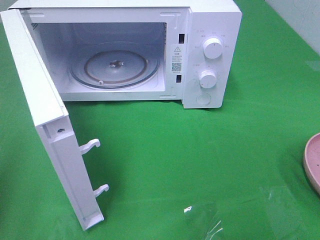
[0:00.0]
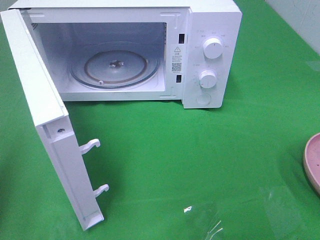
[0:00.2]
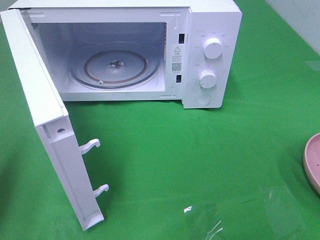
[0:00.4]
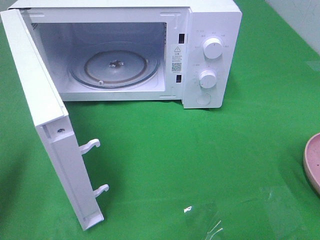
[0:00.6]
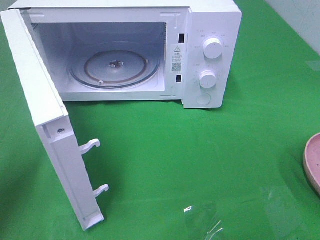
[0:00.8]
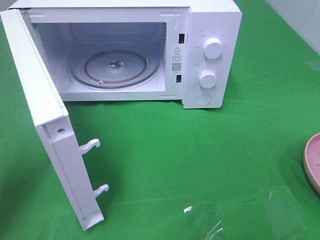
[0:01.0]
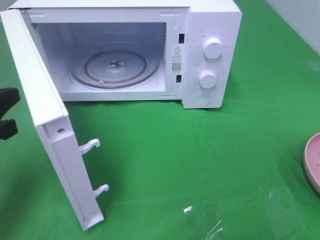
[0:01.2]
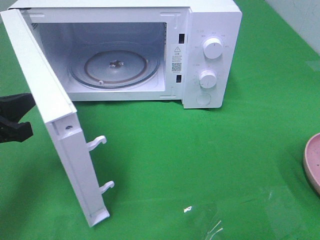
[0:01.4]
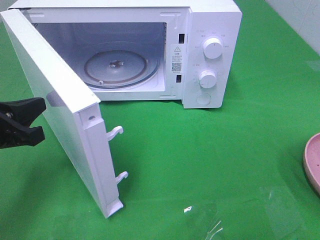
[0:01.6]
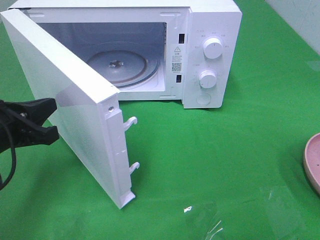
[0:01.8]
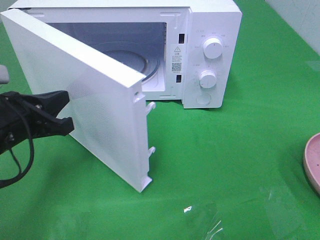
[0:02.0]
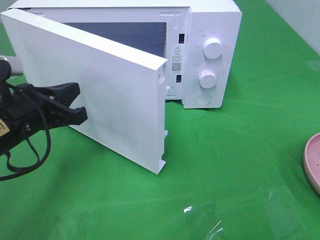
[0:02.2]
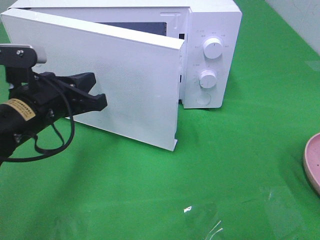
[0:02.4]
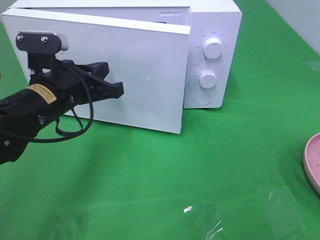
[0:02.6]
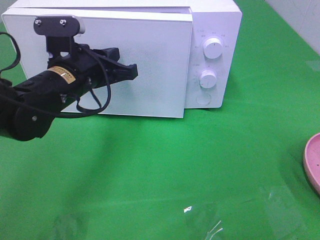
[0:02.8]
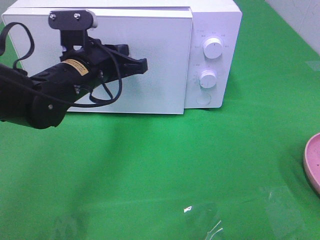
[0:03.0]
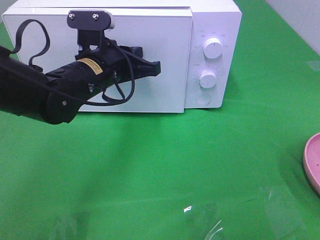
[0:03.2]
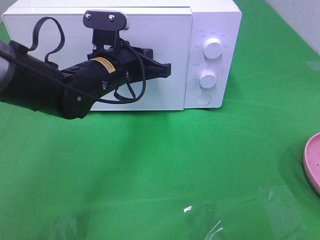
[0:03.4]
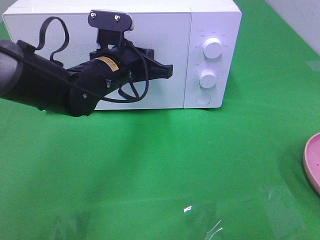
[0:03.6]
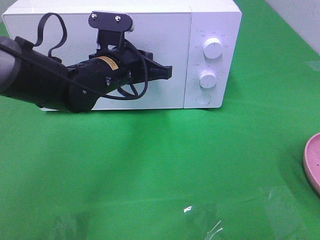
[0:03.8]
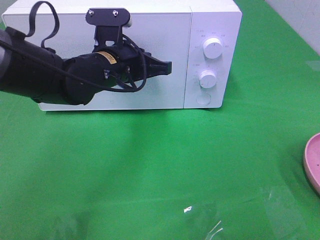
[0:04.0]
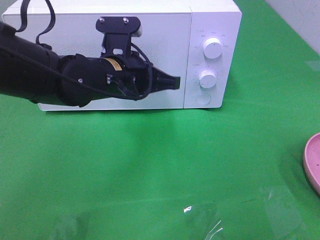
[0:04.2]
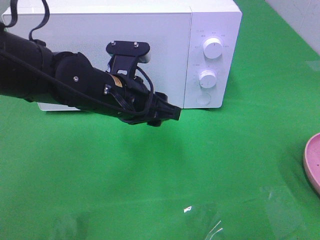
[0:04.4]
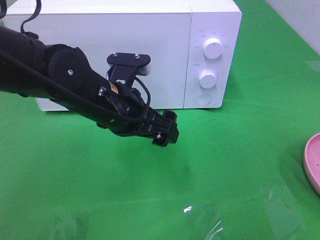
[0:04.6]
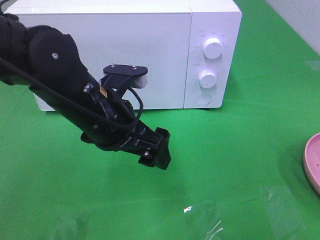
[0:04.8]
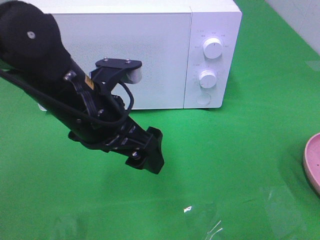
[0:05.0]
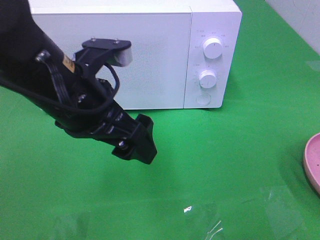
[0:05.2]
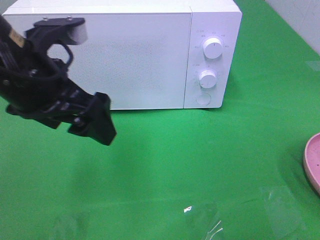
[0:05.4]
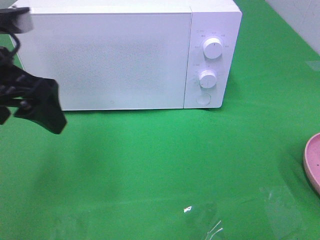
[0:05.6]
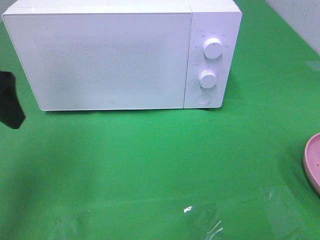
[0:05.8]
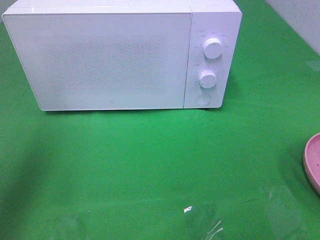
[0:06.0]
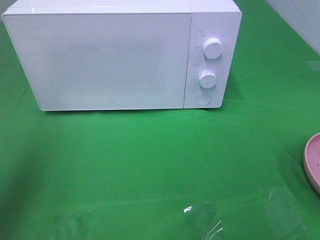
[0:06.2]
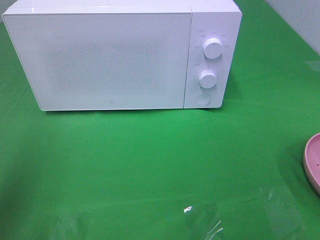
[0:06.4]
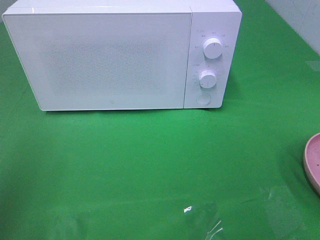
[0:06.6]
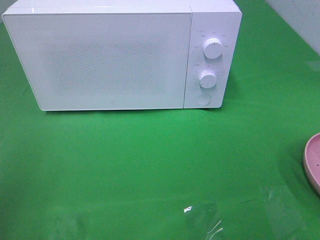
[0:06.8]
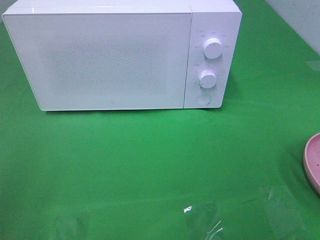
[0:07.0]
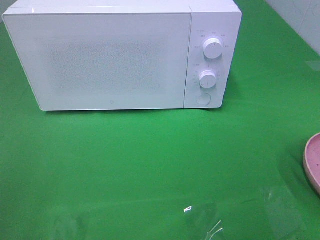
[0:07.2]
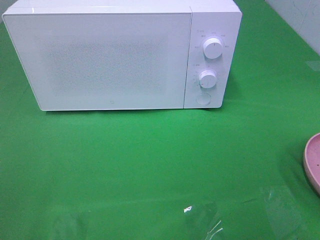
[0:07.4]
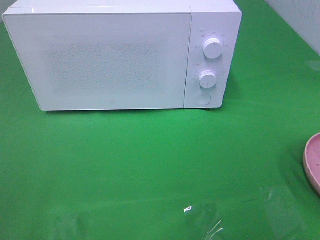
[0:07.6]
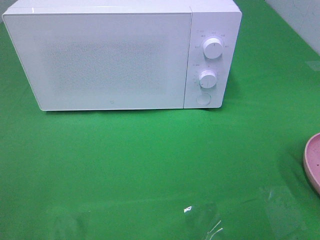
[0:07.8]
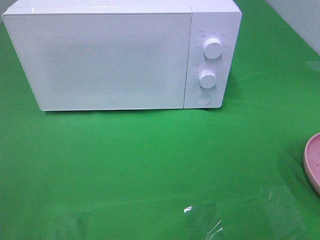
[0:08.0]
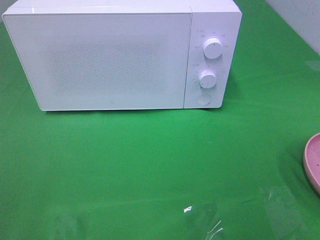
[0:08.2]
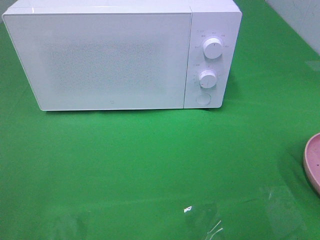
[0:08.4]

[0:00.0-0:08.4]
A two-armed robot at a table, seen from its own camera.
Task of the whole recording: Heat the burger.
Step, 0:00.0 to 0:04.2: Left hand: close the microwave door.
0:00.0 to 0:01.4: The left gripper travels forward, downward and to the right by roughly 15 cm.
0:01.4 to 0:02.8: The left gripper shifts approximately 15 cm to the right and forward.
0:02.8 to 0:04.2: The left gripper heads to the right, covering roughly 5 cm.
0:04.2 to 0:05.6: The left gripper heads to the left, upward and backward, covering approximately 20 cm, and opens its fingers.
0:05.6 to 0:07.0: The left gripper goes roughly 20 cm backward and to the left.

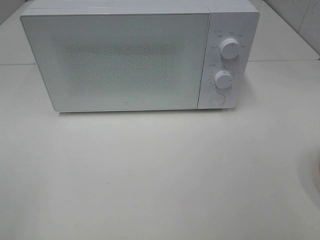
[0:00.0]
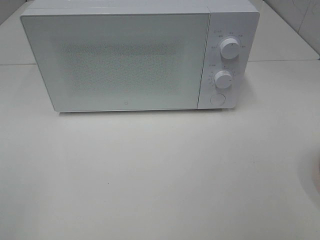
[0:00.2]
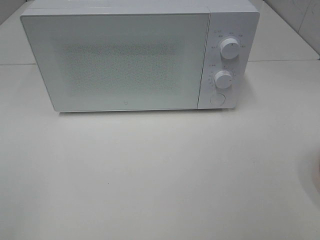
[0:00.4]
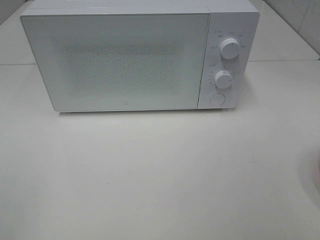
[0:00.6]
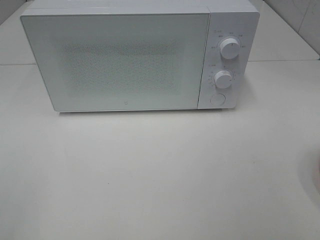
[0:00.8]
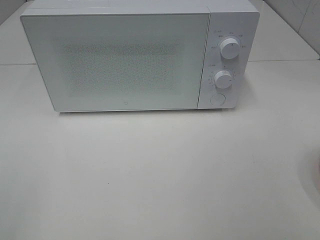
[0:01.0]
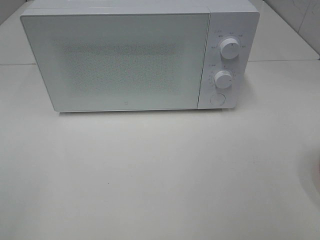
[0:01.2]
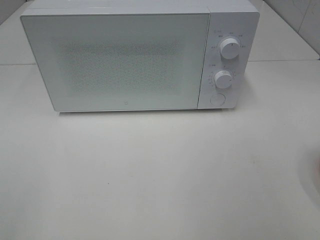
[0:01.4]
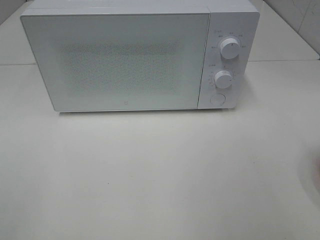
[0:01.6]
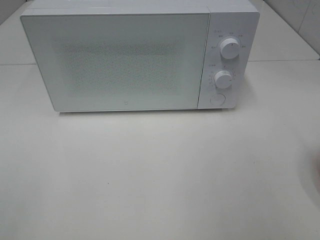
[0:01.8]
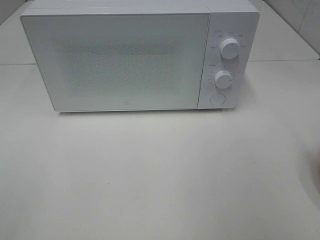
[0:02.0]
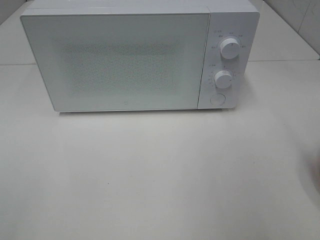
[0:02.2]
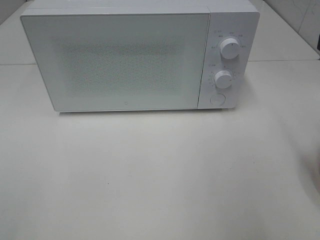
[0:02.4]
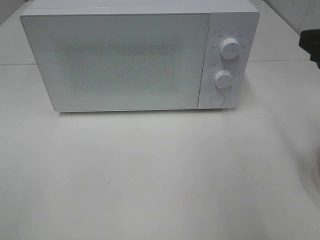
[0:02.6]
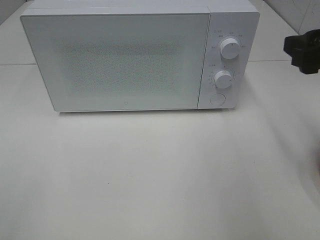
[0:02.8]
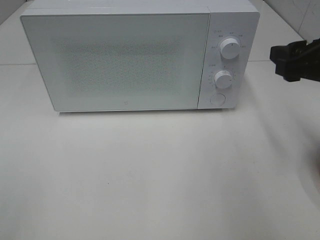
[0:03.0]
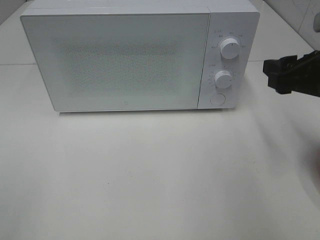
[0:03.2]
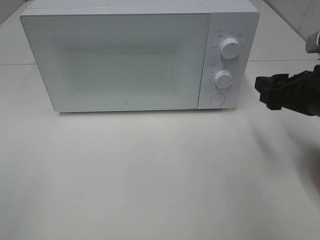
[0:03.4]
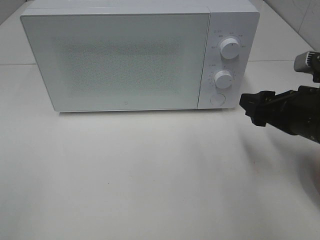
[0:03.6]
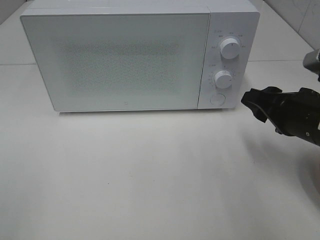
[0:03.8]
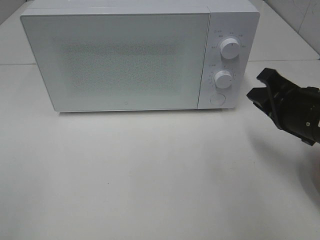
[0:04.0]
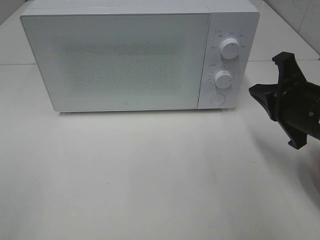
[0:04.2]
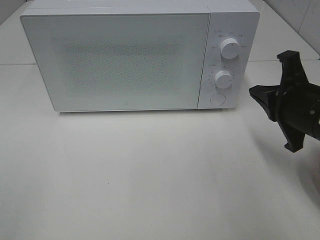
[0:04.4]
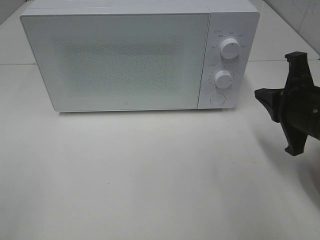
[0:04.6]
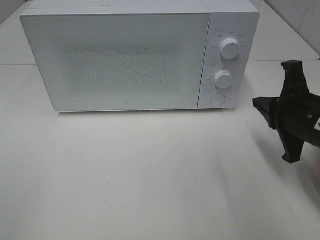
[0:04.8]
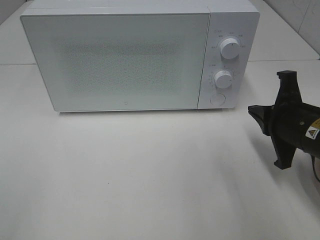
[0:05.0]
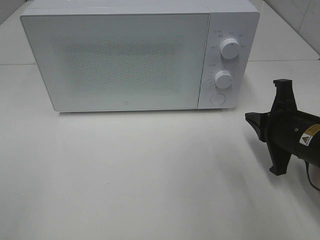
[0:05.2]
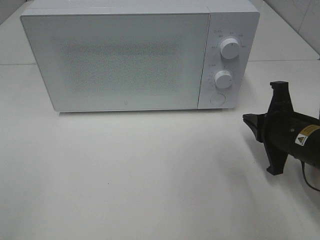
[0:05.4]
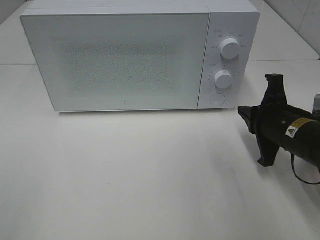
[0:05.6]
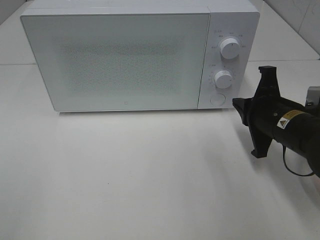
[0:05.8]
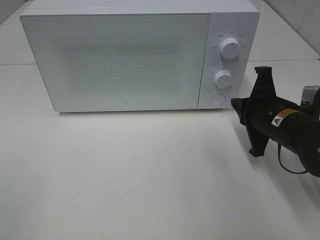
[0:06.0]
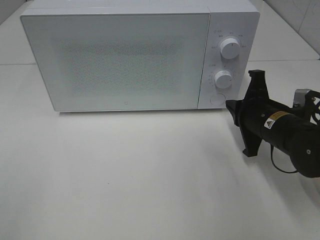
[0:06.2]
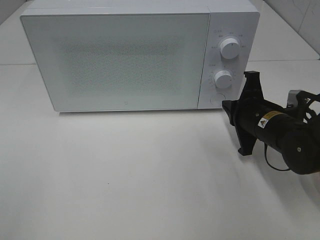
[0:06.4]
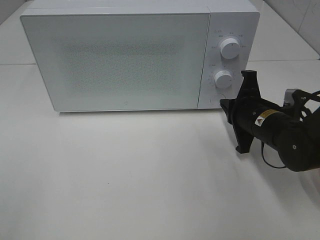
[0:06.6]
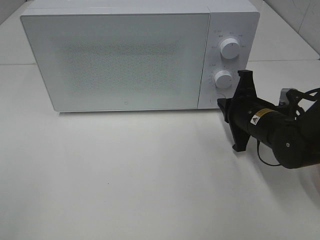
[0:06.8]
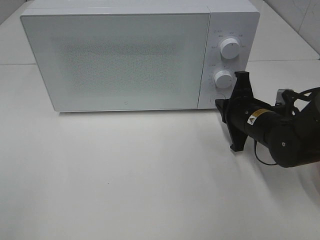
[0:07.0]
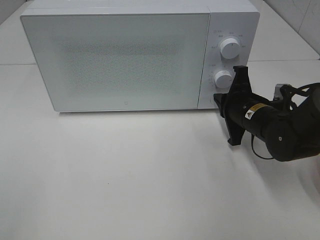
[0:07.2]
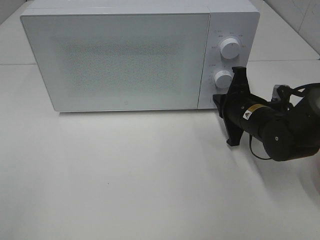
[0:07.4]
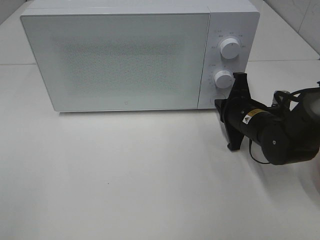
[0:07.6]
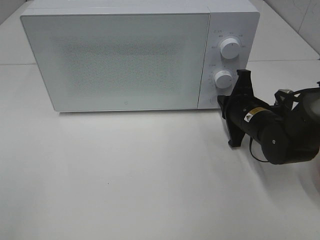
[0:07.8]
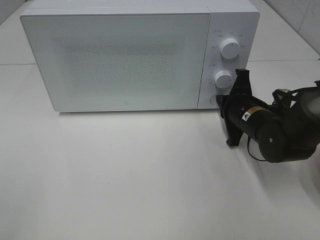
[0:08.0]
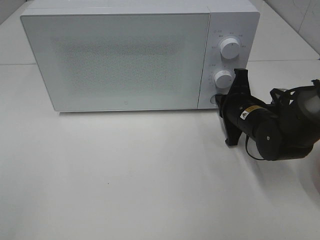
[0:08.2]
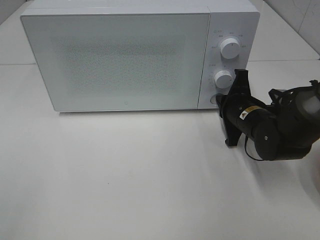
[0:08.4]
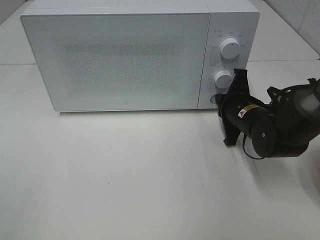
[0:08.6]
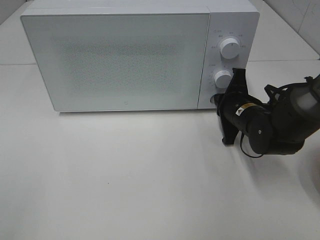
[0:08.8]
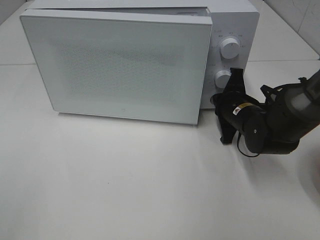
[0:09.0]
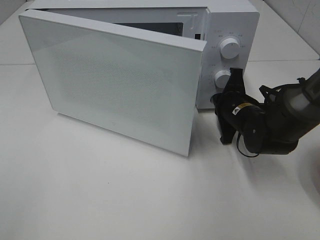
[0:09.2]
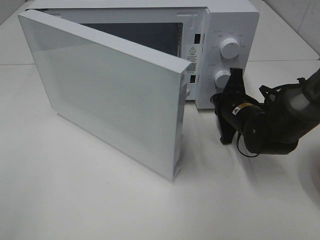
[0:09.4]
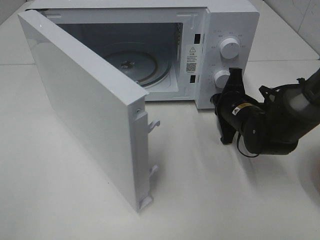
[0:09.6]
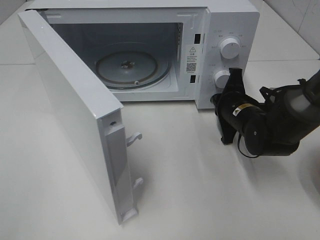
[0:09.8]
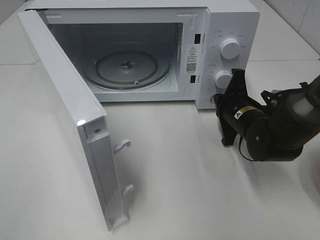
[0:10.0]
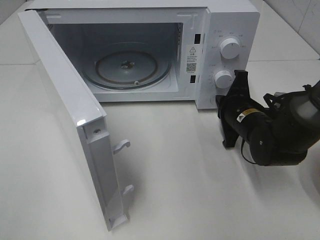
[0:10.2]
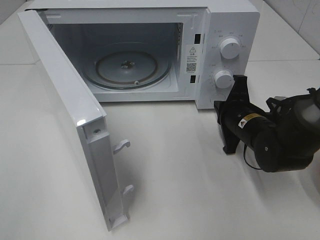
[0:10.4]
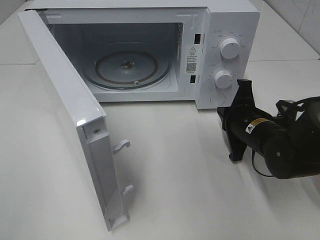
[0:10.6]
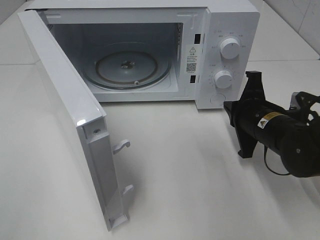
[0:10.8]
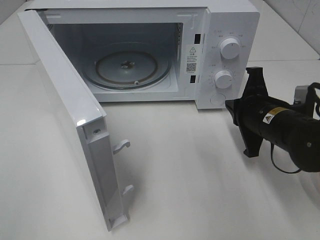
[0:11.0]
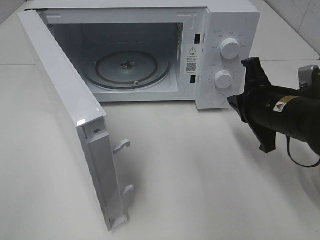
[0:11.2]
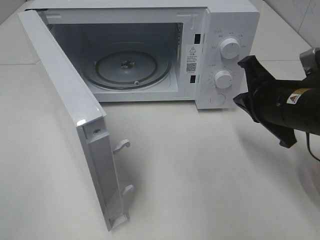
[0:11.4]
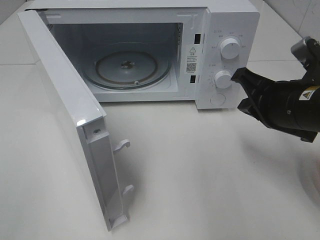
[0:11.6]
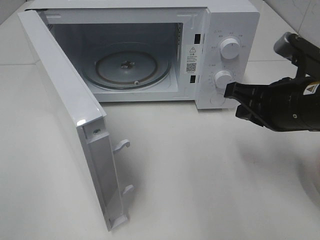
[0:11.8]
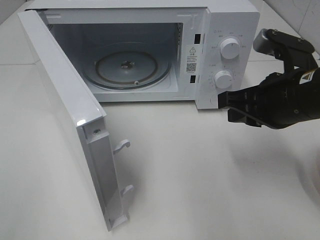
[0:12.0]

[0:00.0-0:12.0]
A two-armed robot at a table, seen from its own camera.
Task of the whole recording: Heat the burger.
Step, 0:00.0 to 0:10.2: Right hand: press the switch.
0:01.6 to 0:03.0: The right gripper moves forward and downward, roughly 20 cm.
0:03.0 to 0:04.4: The right gripper is displaced downward by some 5 cm, and closes up.
0:04.4 to 0:06.0: The right gripper moves downward, roughly 5 cm.
0:06.0 to 0:07.6: The right gripper changes place by some 5 cm.
0:07.6 to 0:09.0: The grippers make only small movements.
0:10.4 to 0:12.0: The right gripper moves upward and backward, approximately 15 cm.

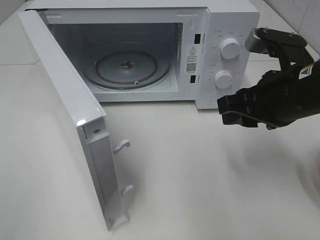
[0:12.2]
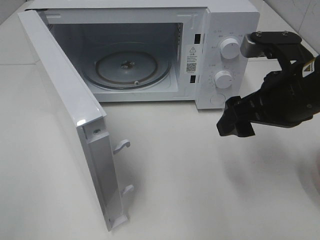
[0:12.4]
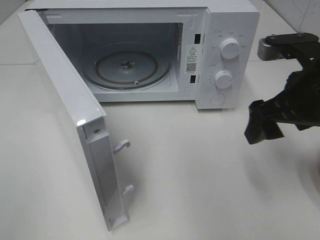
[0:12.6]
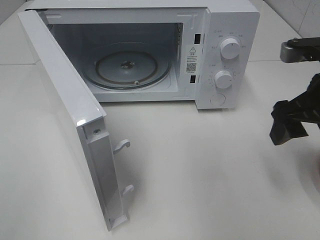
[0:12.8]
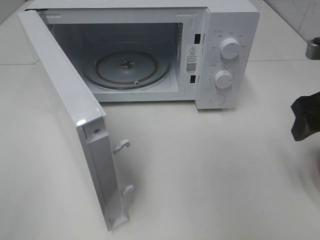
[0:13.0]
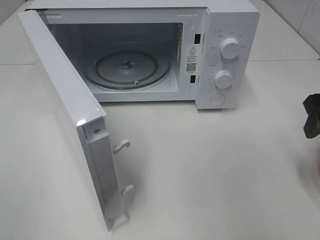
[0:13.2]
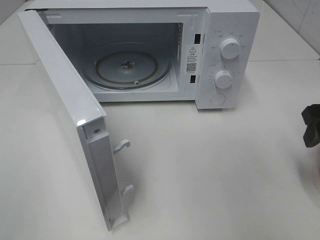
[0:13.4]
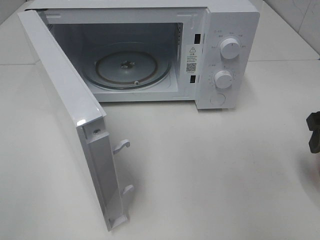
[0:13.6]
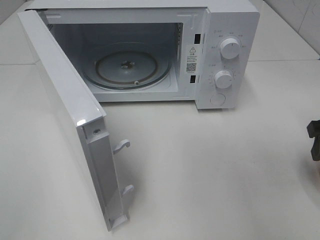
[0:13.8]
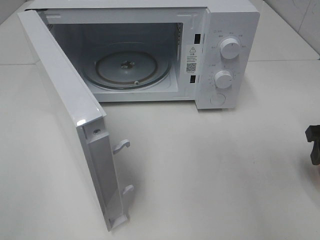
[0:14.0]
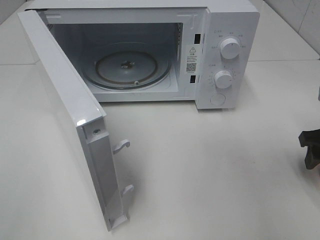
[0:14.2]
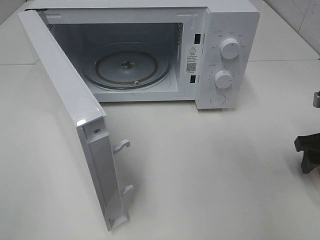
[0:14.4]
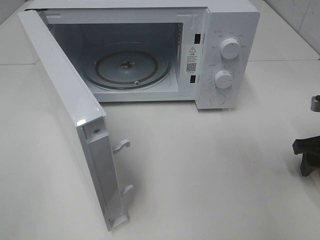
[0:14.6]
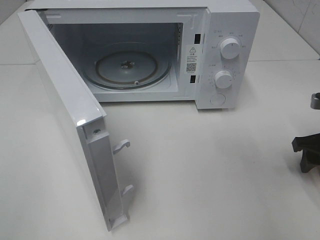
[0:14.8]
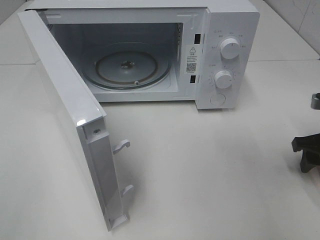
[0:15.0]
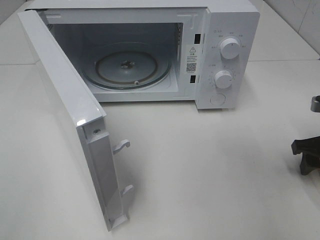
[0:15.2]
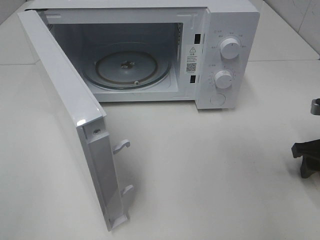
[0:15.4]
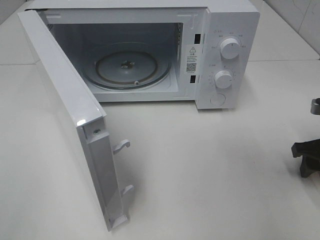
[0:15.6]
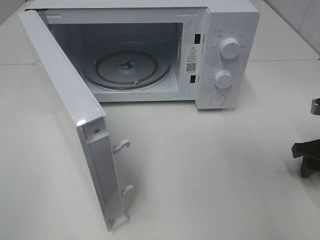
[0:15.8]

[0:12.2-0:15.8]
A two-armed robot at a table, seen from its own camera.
Task of the whole recording: Heat the burger.
0:12.2 to 0:14.0: The right gripper goes about 15 cm to the right and downward, and opens.
0:14.0 to 0:15.8: The right gripper goes roughly 5 cm downward.
